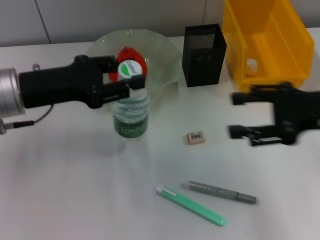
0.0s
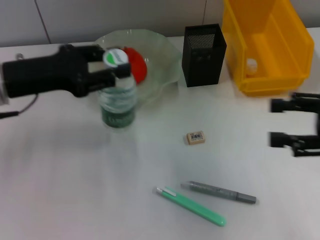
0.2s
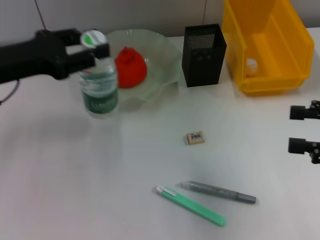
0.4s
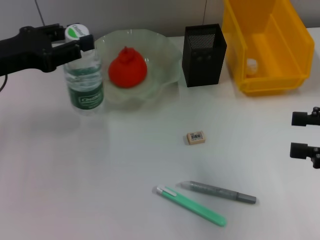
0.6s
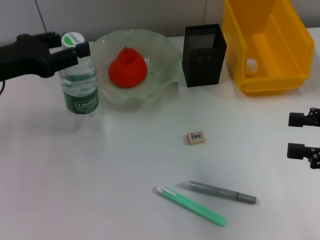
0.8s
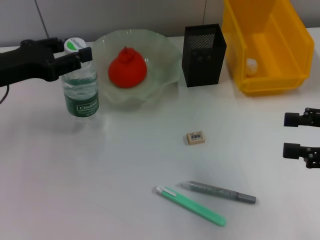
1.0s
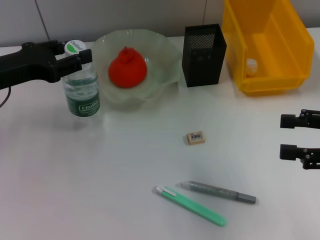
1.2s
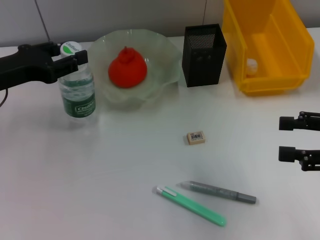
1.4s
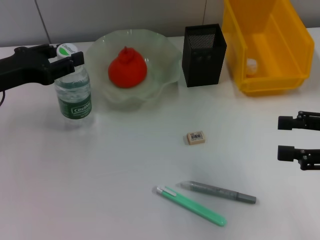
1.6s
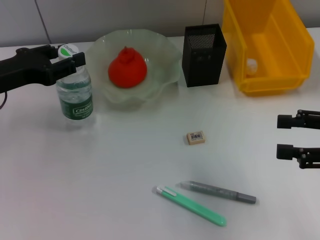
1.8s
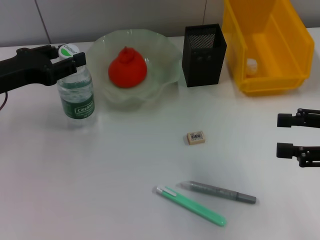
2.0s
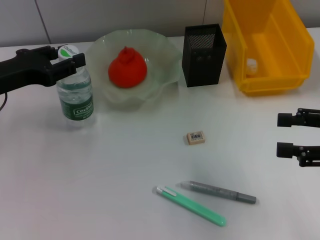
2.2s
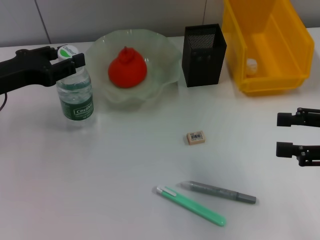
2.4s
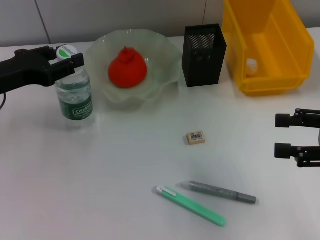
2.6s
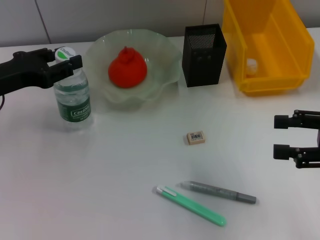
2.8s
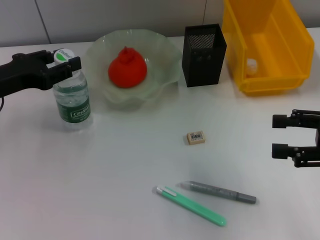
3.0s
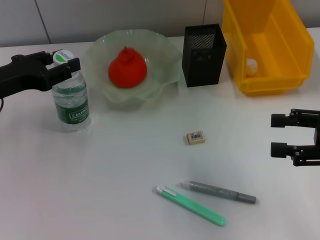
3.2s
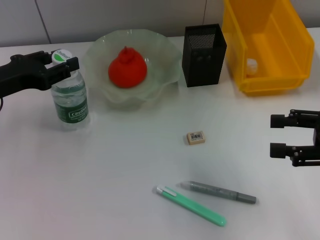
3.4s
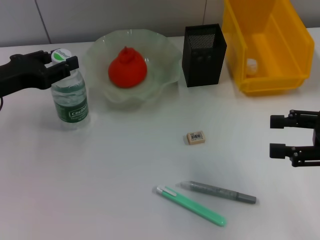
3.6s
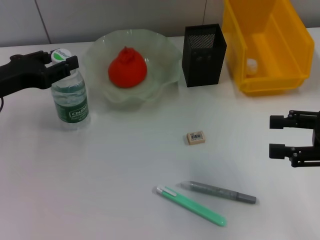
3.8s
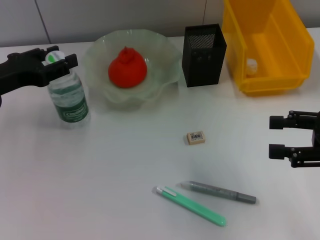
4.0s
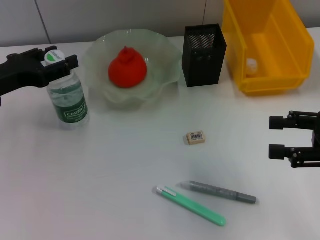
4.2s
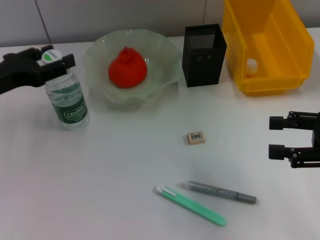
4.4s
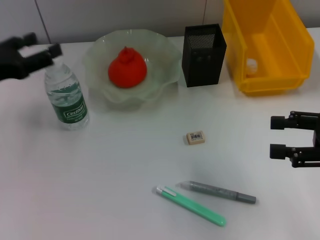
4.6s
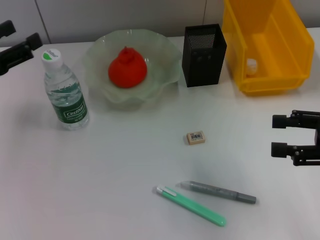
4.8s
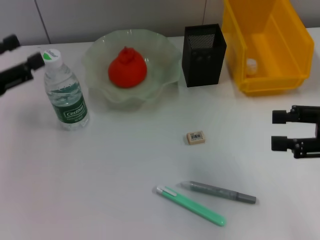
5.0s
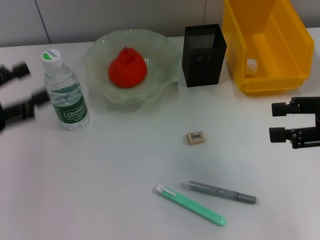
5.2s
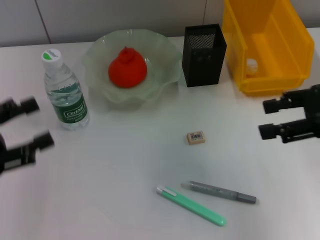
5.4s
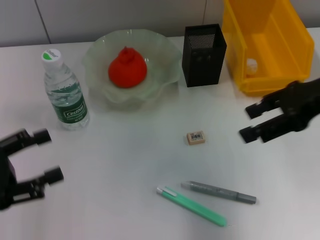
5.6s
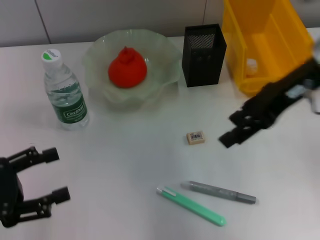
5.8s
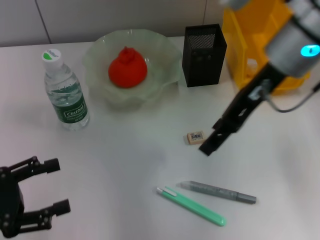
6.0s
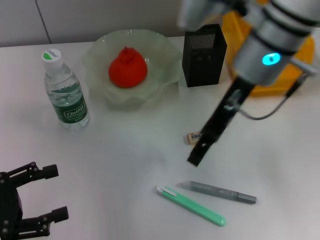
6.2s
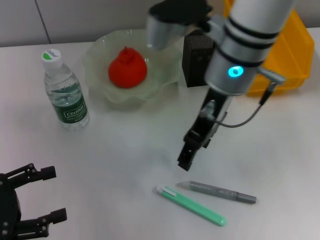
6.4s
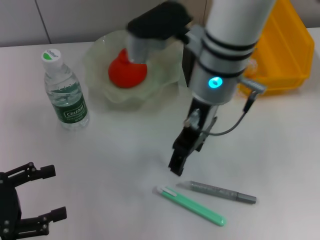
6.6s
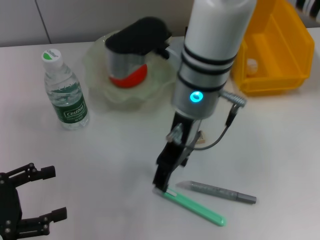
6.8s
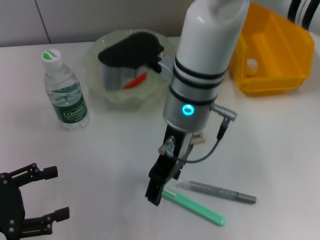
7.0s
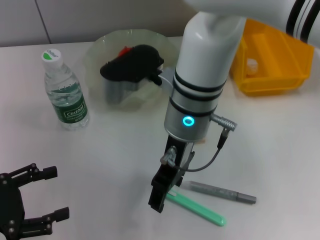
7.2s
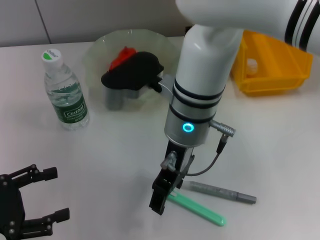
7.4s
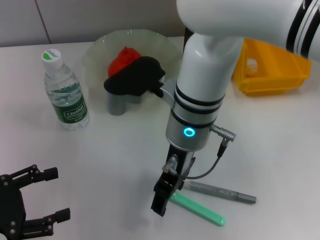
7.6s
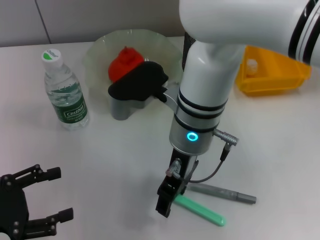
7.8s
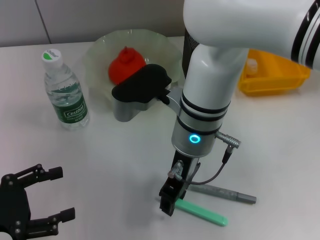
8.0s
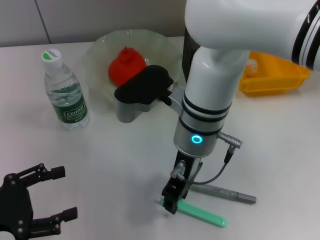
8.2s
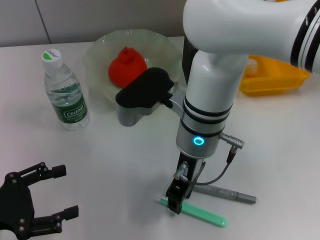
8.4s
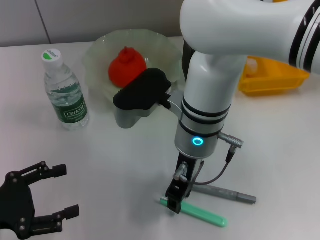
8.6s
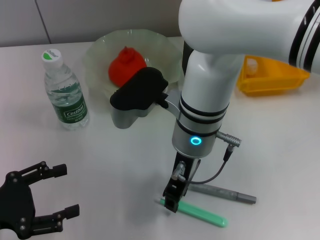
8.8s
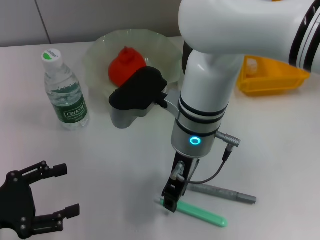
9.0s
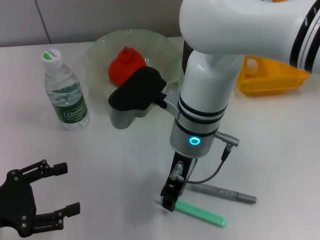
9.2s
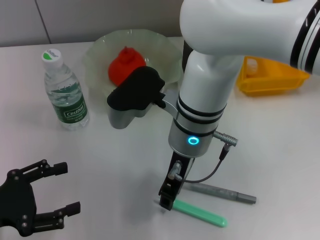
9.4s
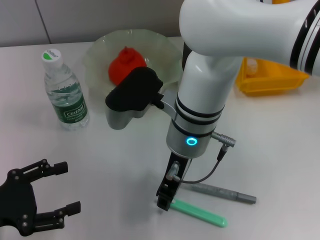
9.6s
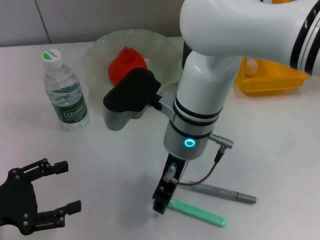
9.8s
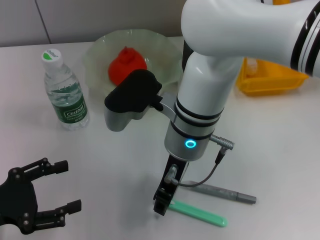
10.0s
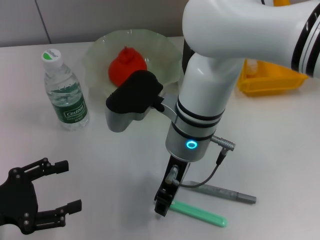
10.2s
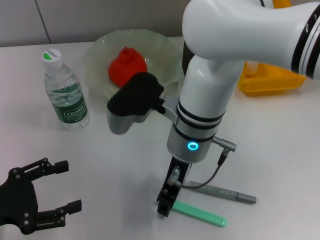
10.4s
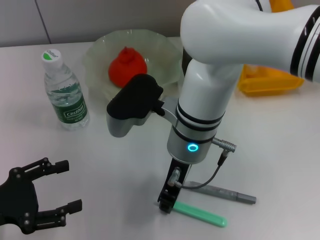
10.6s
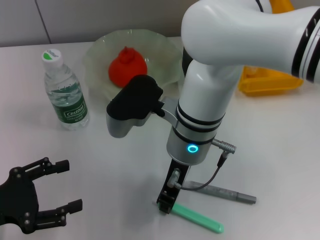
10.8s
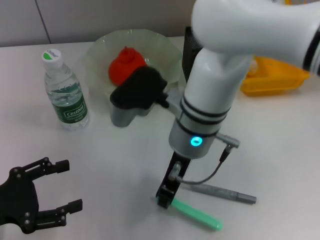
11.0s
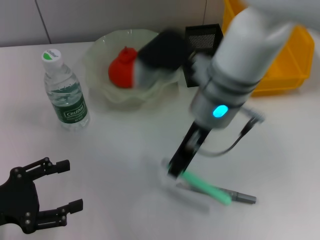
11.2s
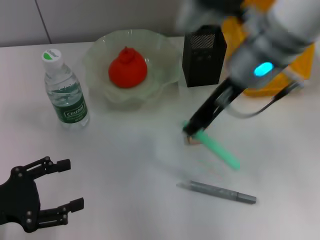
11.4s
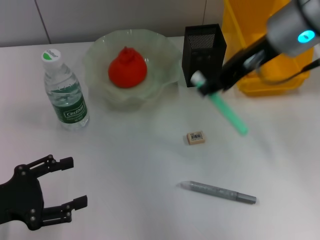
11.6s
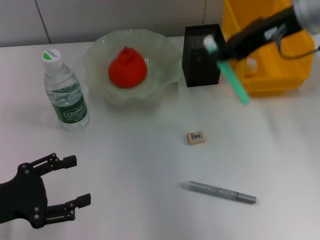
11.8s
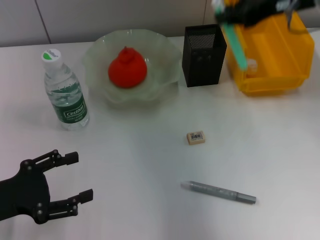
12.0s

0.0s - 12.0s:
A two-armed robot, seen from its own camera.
Step, 0.0s - 4.6s: Place the water bottle on the table with the left hand.
Step, 4.8s - 10.6s: Grab the blue utility knife with the right hand.
0.0s - 1.6s: The right gripper shifts by about 5 cm. The left gripper goes some 5 cm to the left.
1.6s - 3.0s: Neither gripper changes place.
3.0s - 4.4s: Neither gripper changes place.
4.4s - 6.0s: The right gripper moves to the left, forward and upward, some 25 cm. The left gripper goes about 15 cm backward.
6.0s - 7.6s: The right gripper shifts roughly 15 cm to the left and downward.
7.6s - 9.0s: The right gripper closes.
9.0s - 10.4s: The grippers make only small movements.
10.4s - 12.0s: The right gripper moves to the right and upward, about 25 cm.

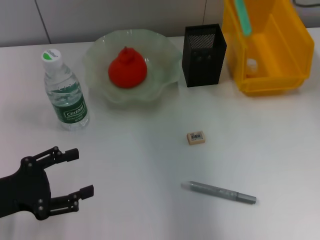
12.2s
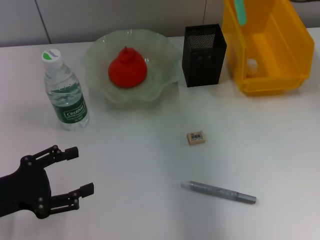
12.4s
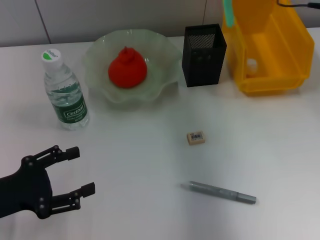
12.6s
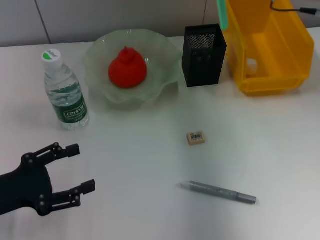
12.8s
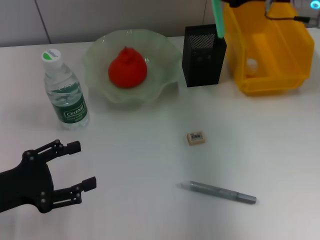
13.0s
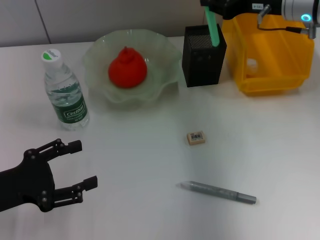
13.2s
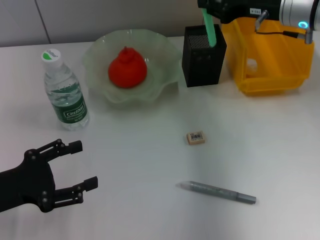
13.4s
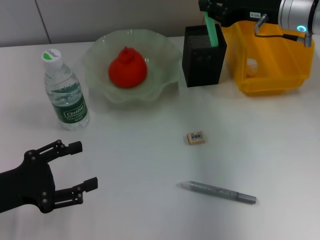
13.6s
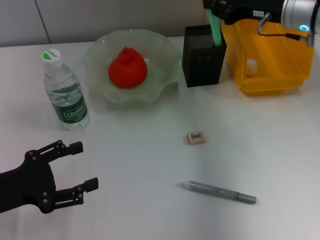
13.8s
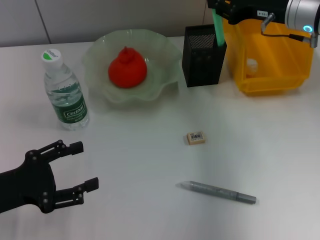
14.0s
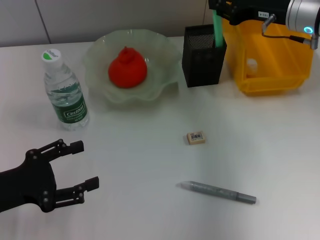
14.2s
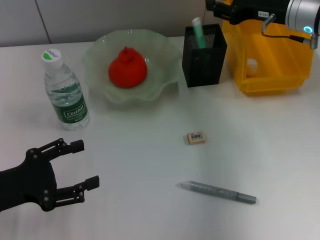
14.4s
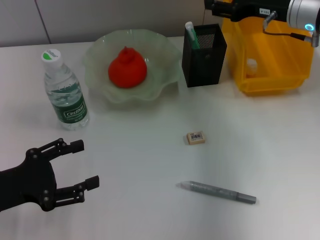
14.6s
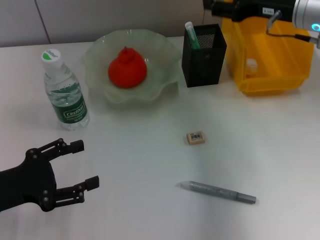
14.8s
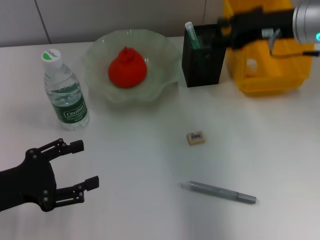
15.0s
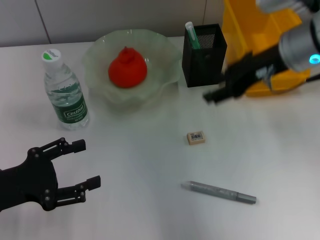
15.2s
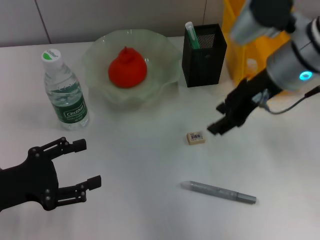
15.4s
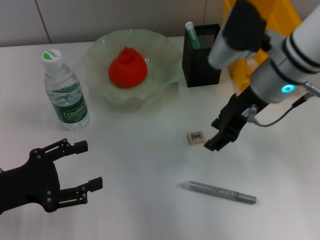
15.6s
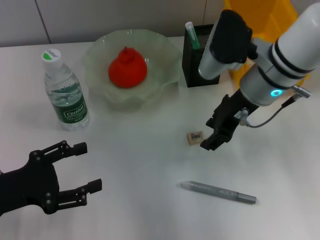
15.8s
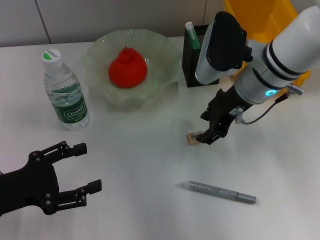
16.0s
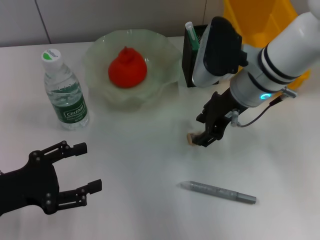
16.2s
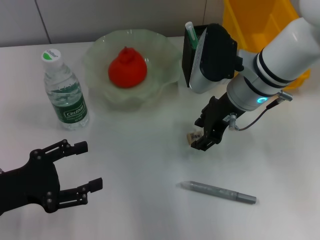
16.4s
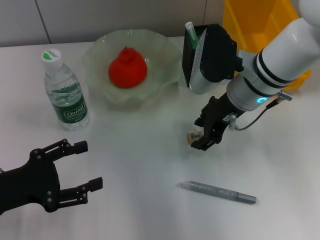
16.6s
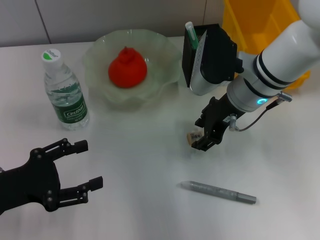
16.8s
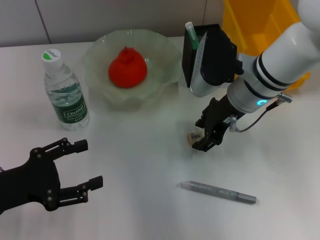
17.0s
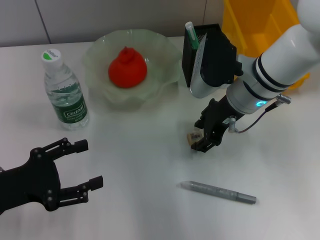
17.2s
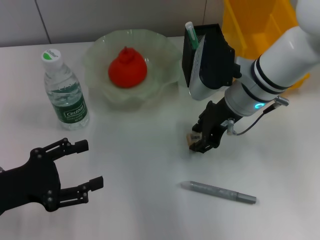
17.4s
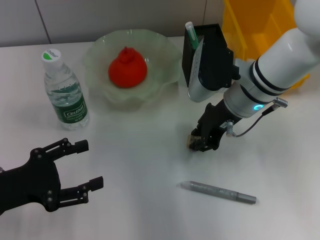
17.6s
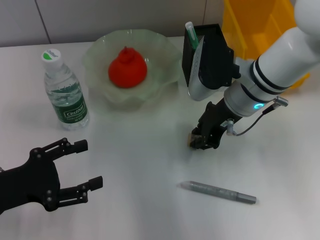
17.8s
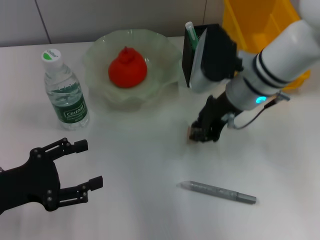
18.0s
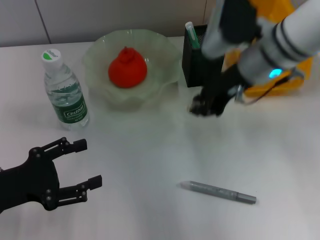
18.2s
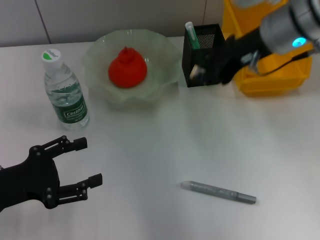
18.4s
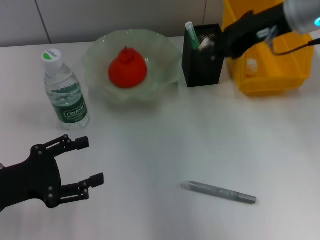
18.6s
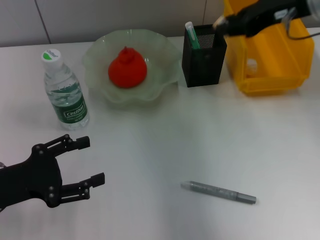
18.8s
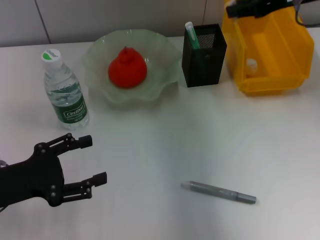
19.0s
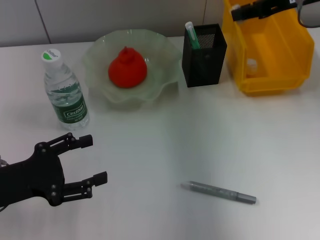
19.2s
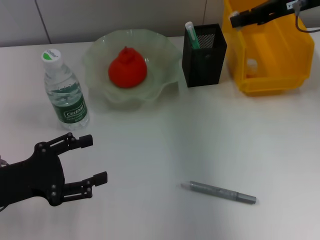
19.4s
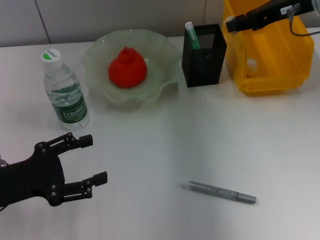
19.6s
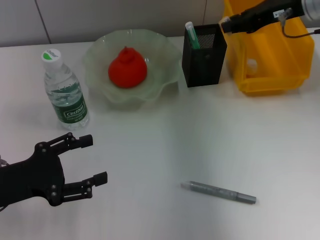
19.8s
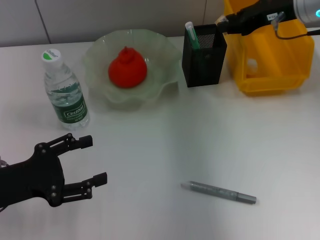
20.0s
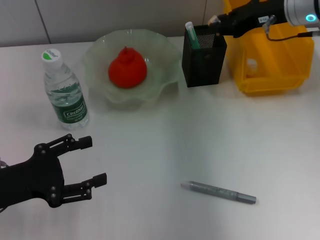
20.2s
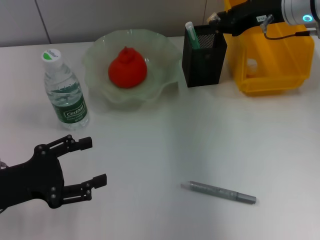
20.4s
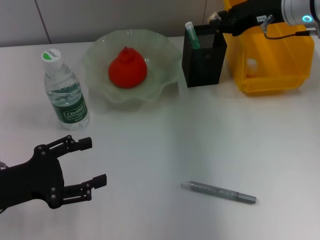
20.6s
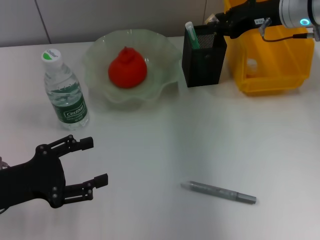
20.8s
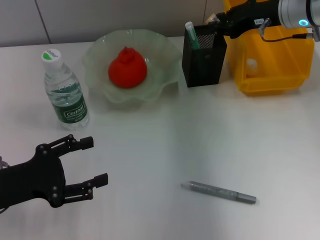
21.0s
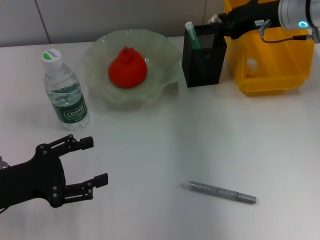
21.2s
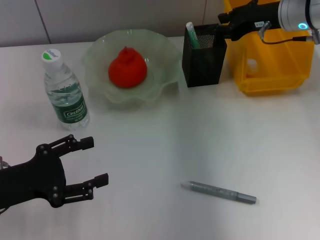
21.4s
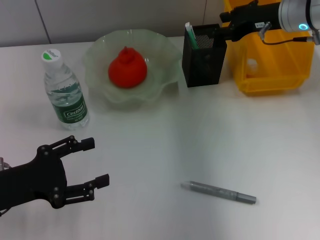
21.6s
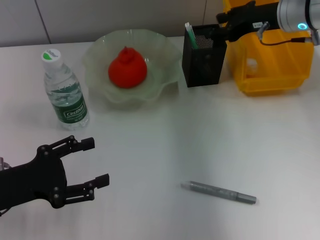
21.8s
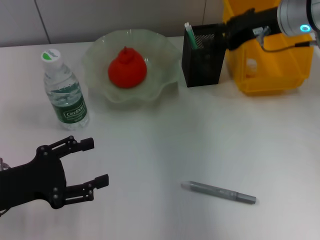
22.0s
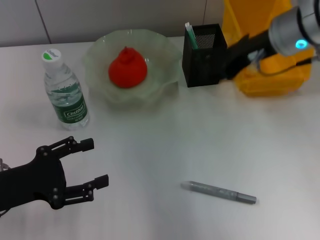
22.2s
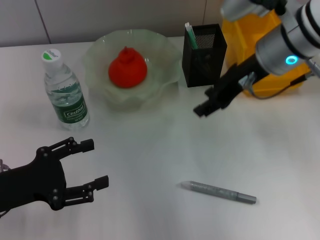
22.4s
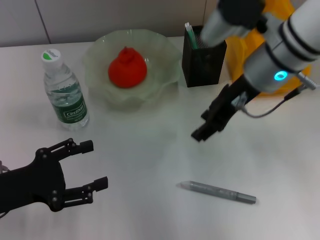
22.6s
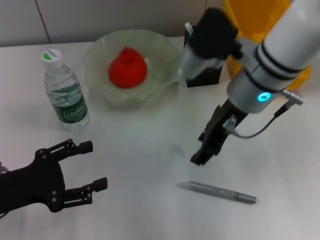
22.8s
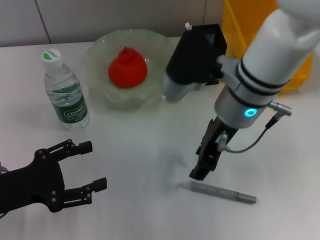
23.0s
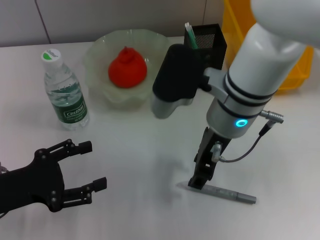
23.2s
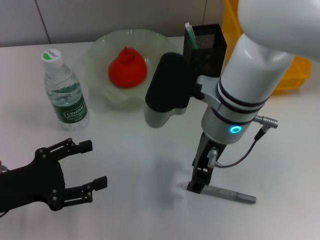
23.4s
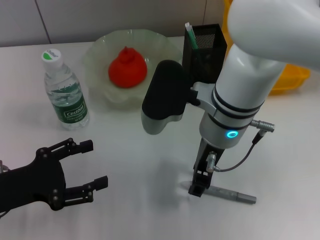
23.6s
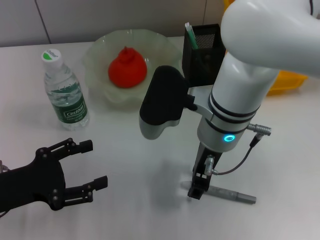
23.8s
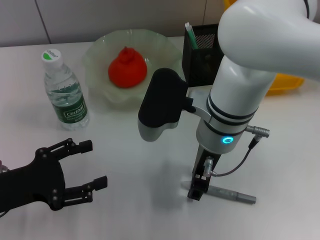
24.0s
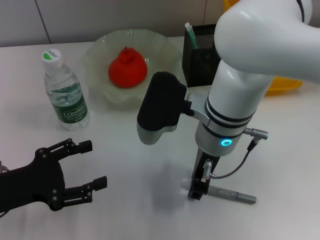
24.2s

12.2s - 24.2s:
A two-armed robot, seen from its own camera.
Step, 12.2s - 14.6s: Place the blue utility knife into the pen holder with the right hand.
Step, 14.8s - 17.8s: Grab the eraser with the right hand.
Step, 18.0s - 21.6s: Put the eraser into the pen holder with the right hand.
12.2s - 13.8s: The right gripper heads downward, covering approximately 10 cm.
13.8s - 15.2s: The right gripper is displaced backward by approximately 5 cm, and opens its fingers.
15.2s - 16.6s: The right gripper goes roughly 10 cm downward and to the left.
16.6s - 18.2s: The right gripper closes its fingers.
18.2s - 19.8s: The right gripper travels to the right and forward by some 10 cm.
19.8s - 21.2s: The grippers move only a little.
21.2s - 22.6s: The right gripper is displaced to the left and backward by some 15 cm.
22.6s - 24.2s: The right gripper is displaced to the left and downward by about 10 cm.
